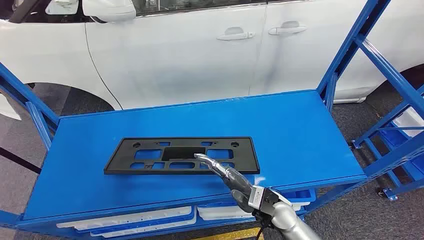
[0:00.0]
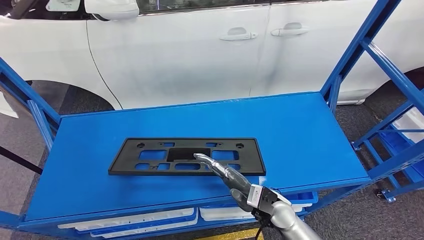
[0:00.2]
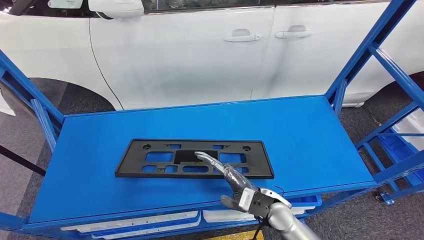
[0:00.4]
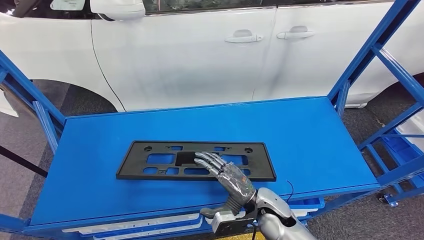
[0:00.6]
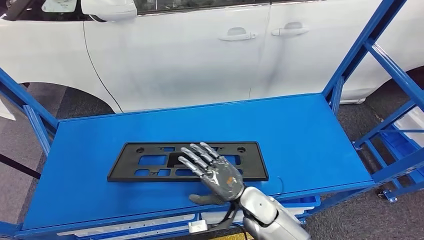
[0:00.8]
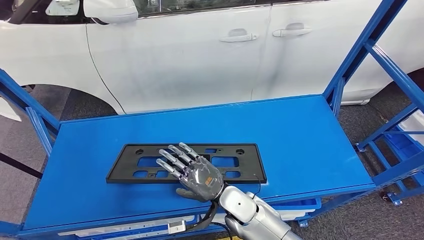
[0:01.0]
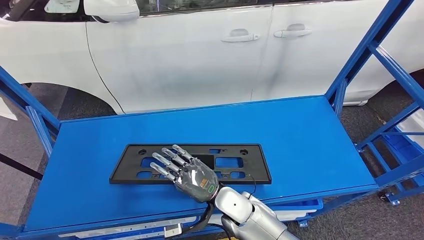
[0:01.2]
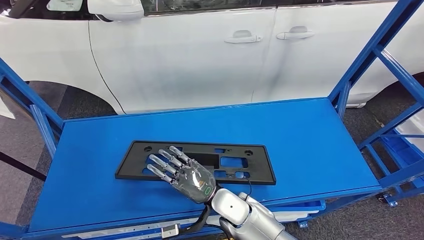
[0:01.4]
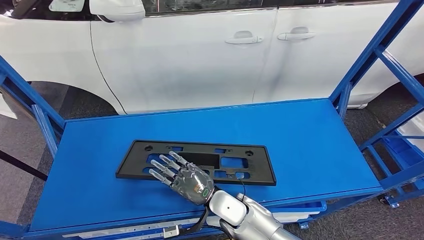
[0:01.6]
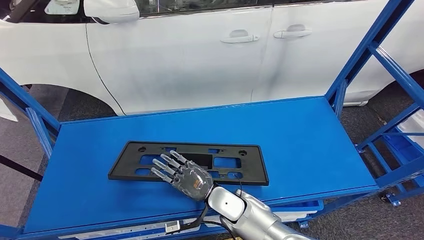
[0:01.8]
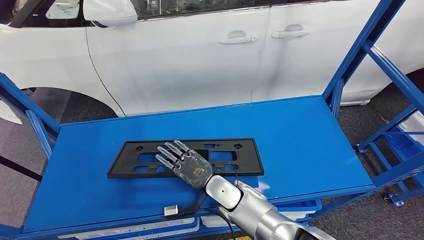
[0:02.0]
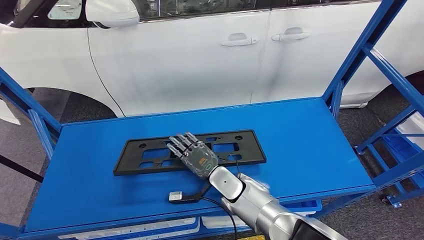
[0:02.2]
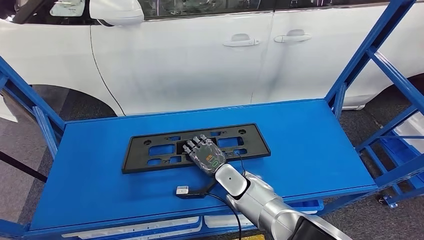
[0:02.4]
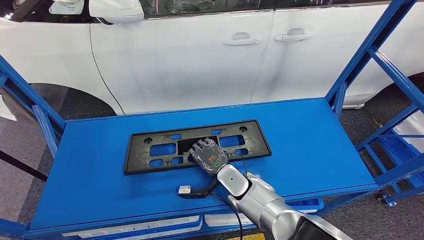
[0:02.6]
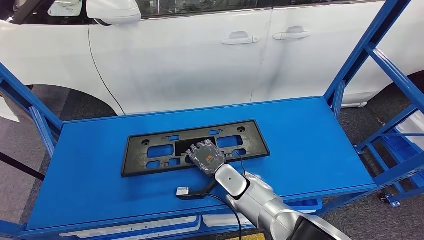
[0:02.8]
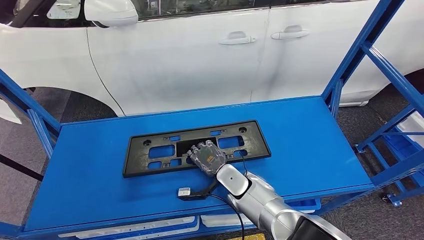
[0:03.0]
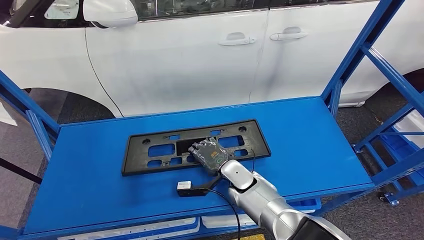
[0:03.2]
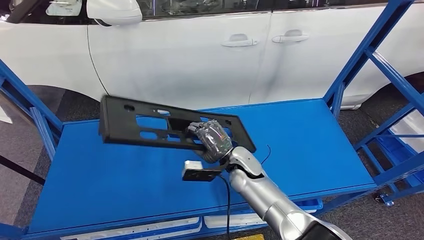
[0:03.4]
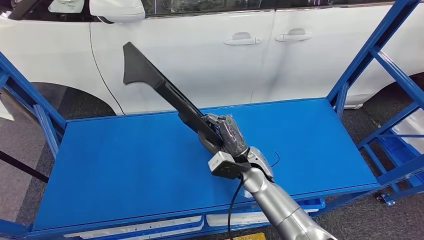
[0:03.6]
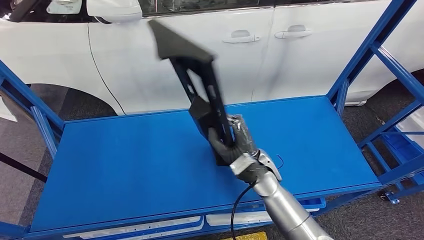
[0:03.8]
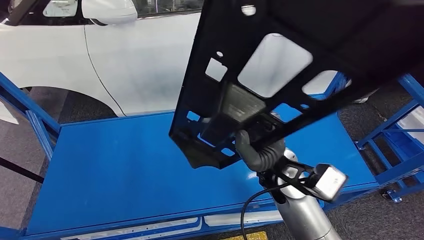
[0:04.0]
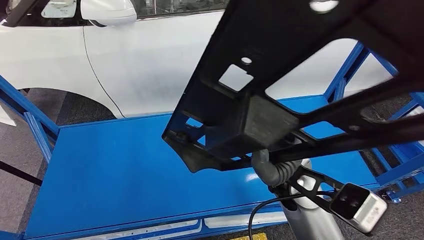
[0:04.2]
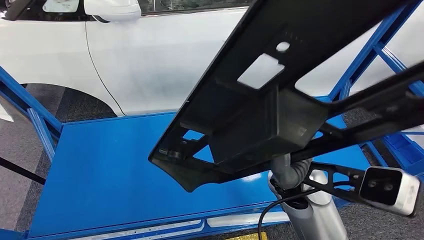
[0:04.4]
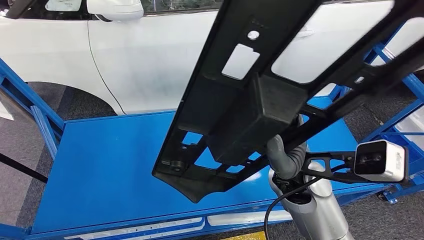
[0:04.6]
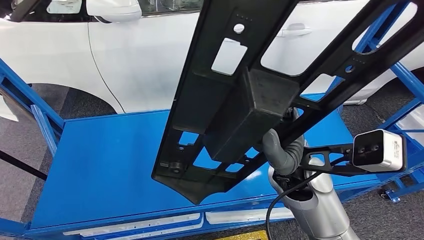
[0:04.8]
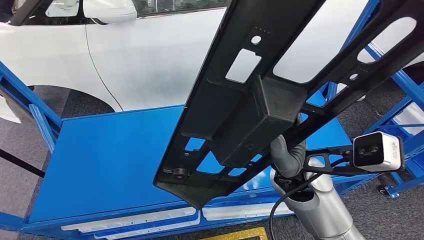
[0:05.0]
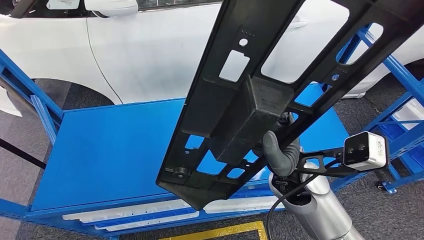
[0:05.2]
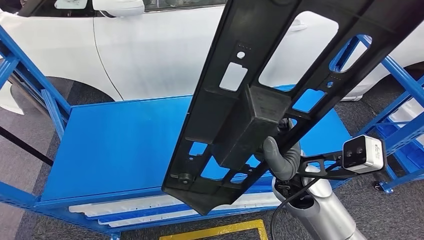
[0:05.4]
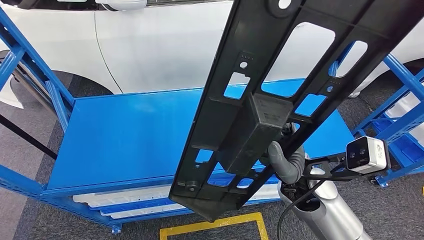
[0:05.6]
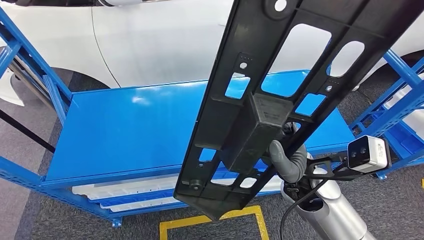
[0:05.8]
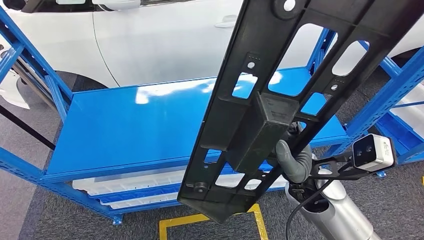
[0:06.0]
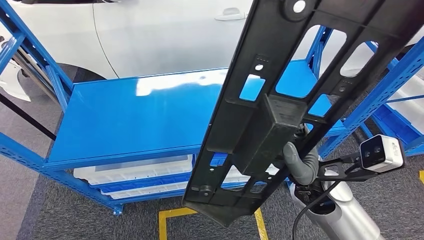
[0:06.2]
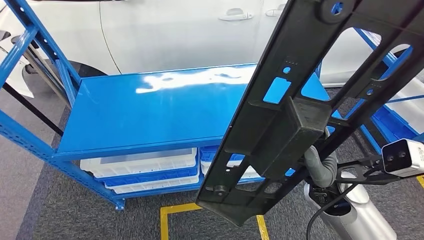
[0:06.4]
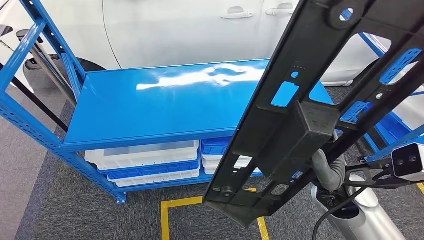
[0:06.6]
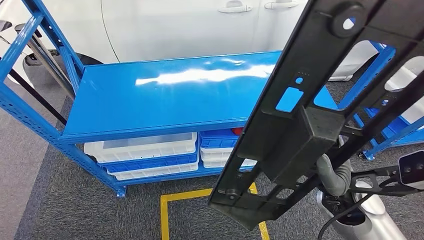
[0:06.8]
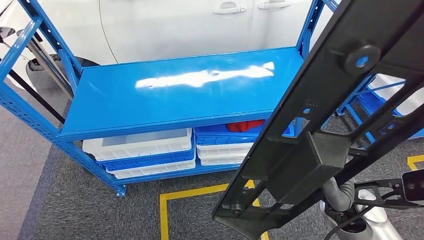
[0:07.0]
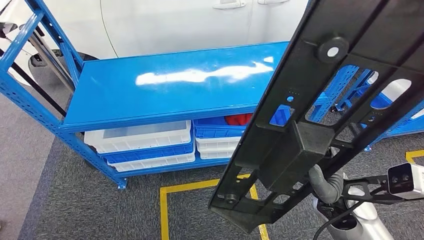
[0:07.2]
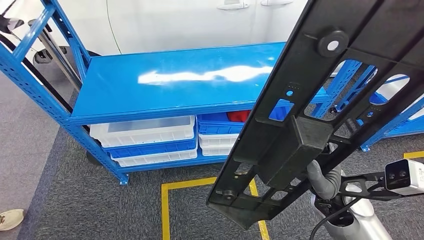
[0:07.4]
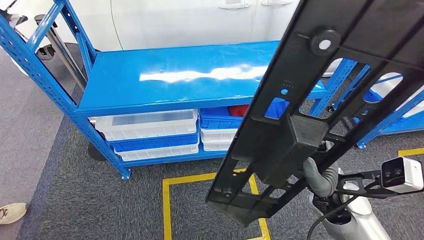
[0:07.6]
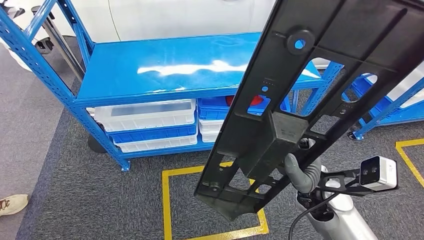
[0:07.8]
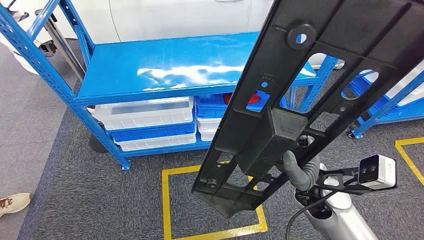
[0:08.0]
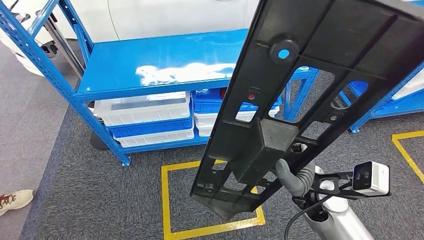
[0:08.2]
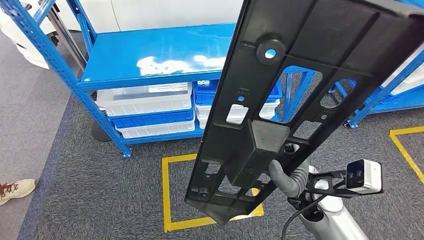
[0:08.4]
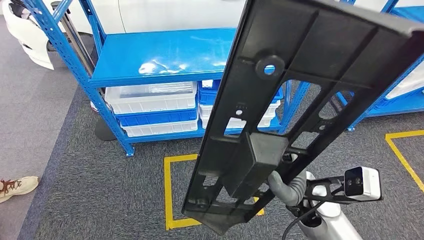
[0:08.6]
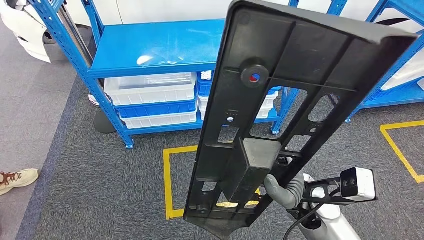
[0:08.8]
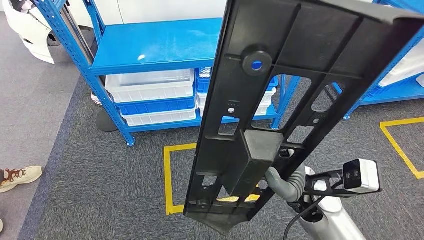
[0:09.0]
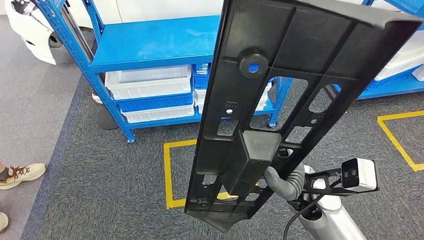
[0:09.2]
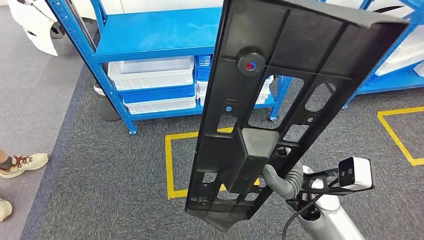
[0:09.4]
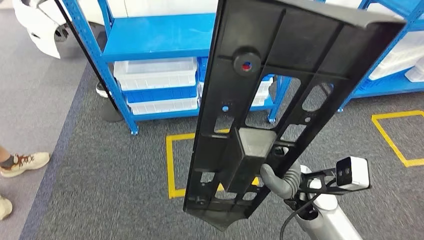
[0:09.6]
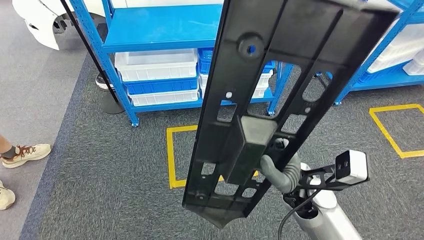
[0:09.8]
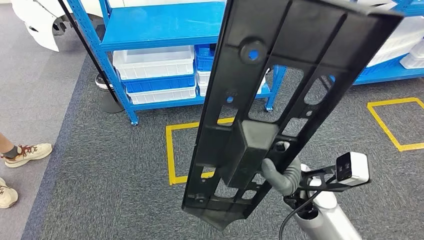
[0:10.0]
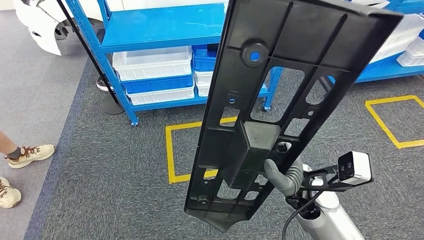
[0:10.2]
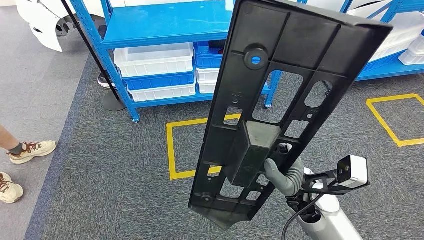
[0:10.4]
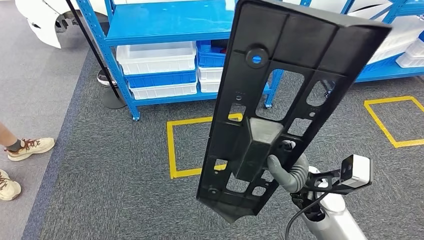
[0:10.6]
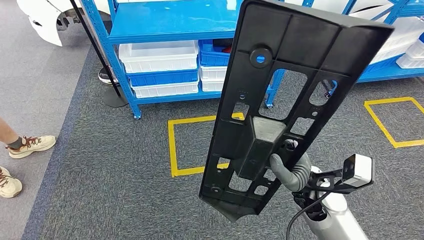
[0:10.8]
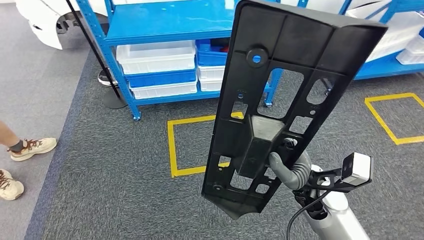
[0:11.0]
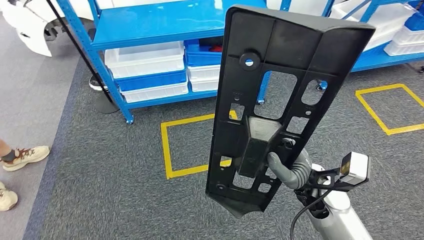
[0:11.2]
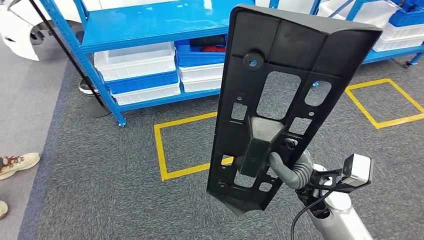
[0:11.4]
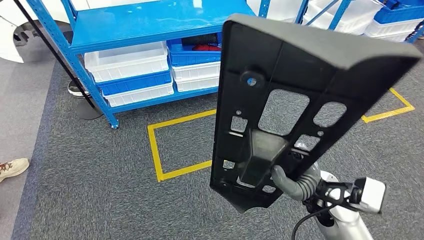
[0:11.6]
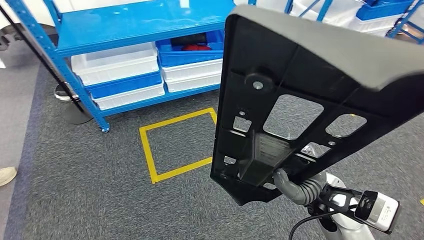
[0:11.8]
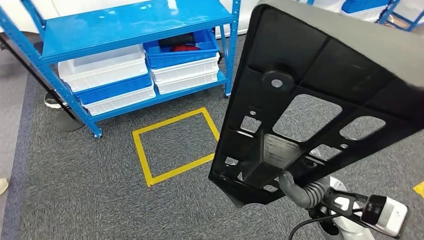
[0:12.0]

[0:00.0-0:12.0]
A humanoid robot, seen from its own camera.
Step, 0:00.0 to 0:03.6: Pick up the large material from the shelf.

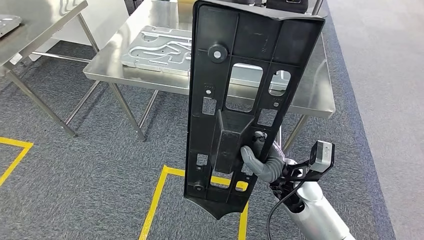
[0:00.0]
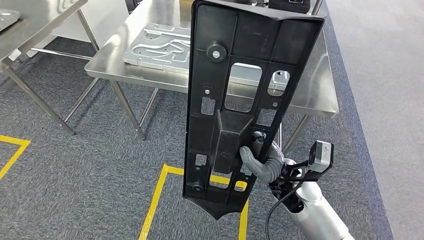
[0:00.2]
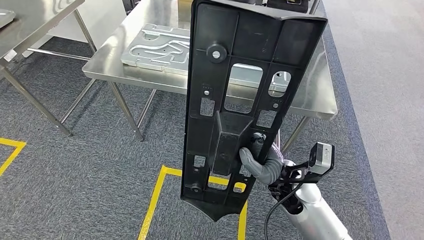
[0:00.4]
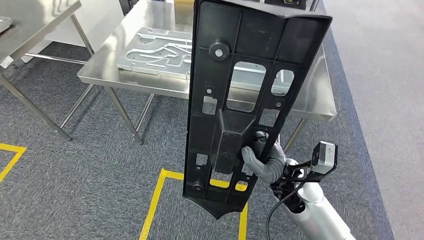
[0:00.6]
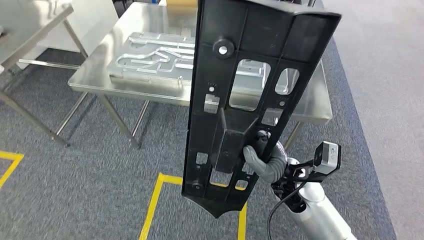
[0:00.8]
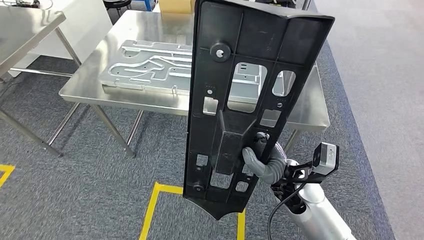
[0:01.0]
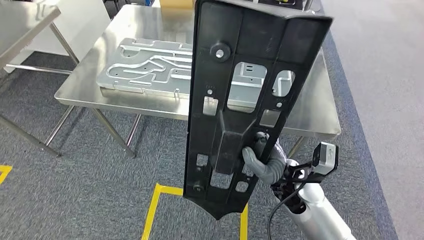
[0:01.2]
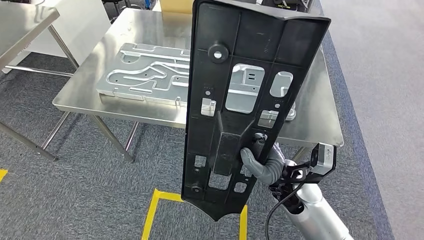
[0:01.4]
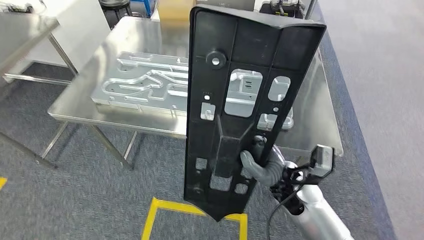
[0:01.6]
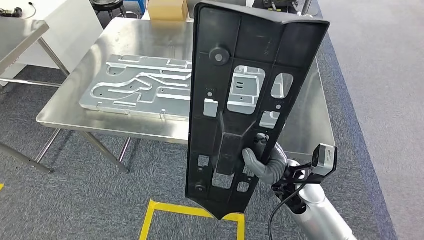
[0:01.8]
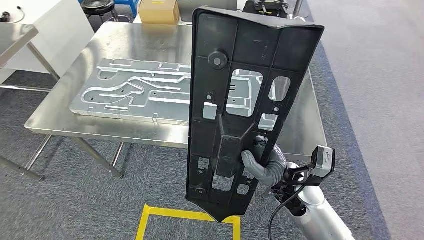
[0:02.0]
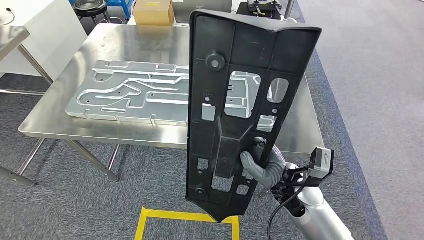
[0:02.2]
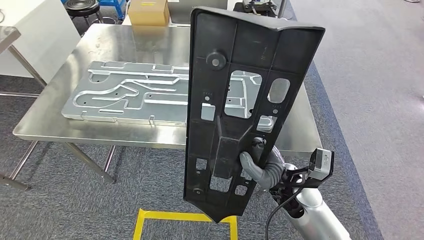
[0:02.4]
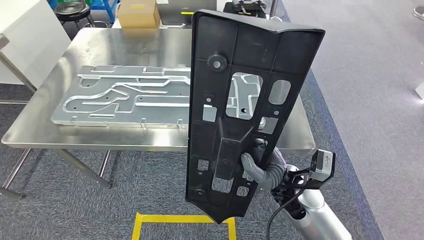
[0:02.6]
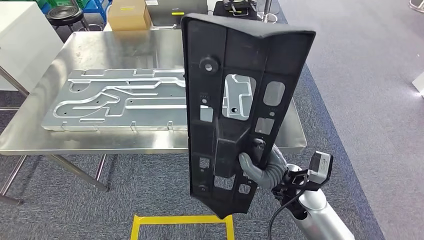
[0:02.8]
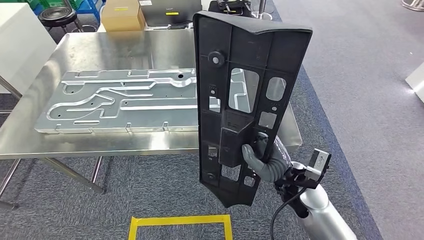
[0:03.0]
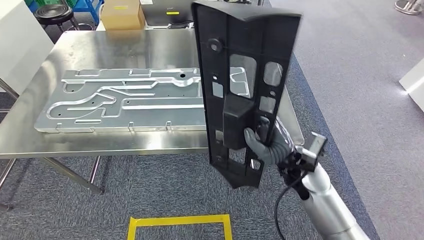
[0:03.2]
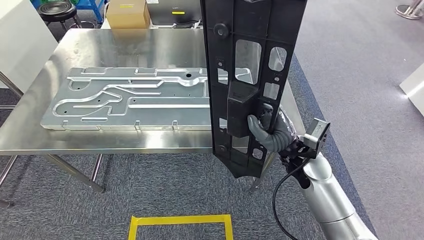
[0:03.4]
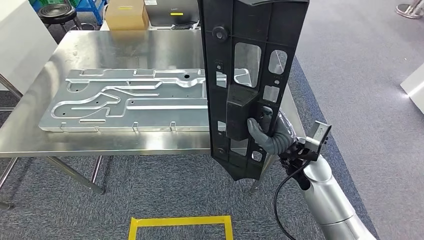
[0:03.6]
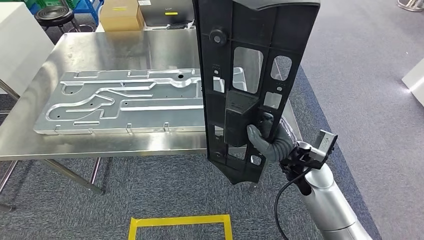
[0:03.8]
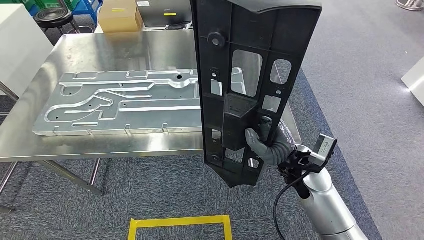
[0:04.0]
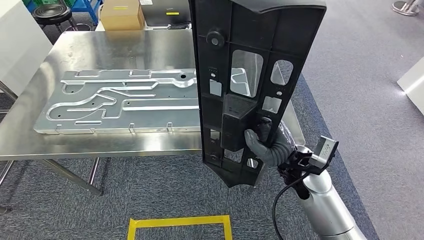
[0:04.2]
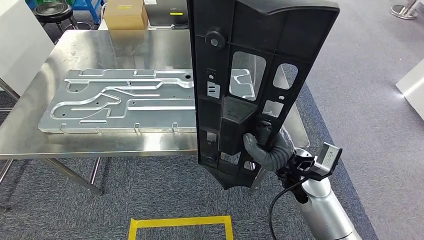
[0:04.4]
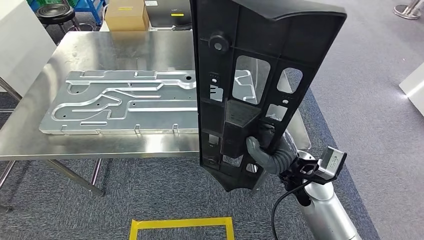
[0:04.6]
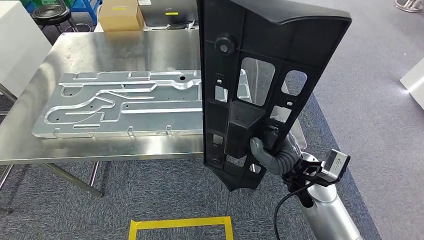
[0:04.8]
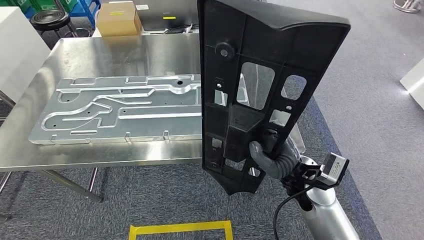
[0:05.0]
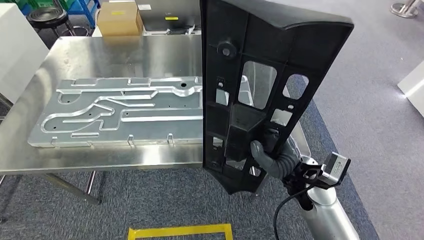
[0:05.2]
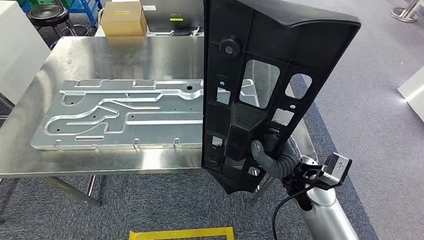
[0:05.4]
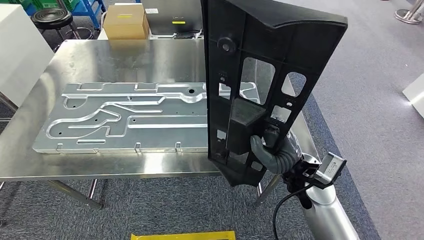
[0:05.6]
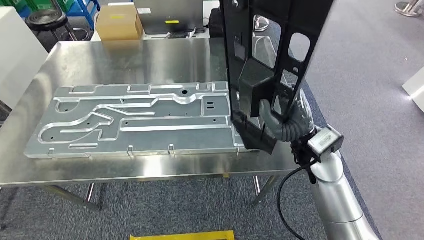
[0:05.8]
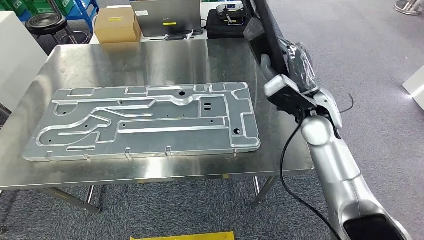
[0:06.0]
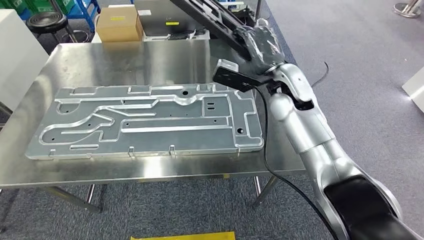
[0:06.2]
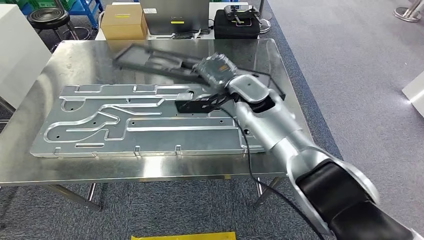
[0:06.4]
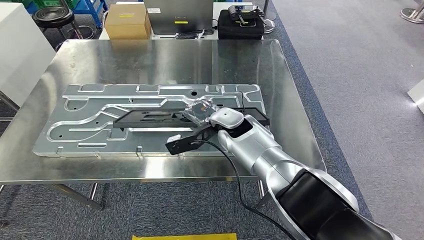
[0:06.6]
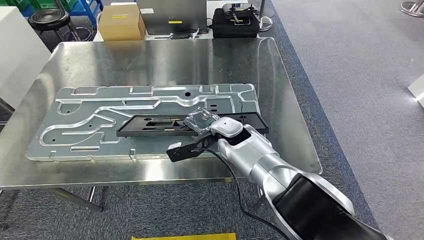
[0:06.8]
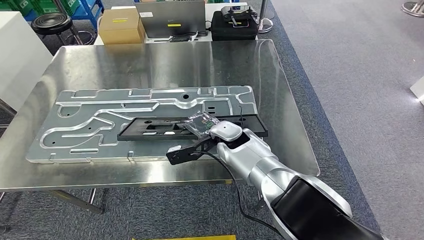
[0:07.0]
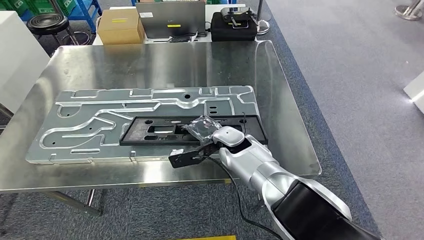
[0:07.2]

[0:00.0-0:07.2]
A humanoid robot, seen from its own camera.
Step, 0:00.4 to 0:06.6: Insert the large material into the corresponding slot on the workbench.
